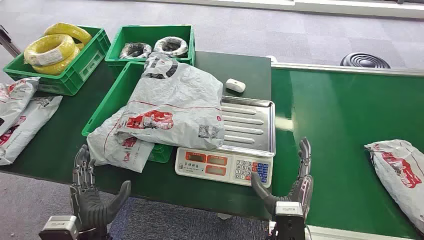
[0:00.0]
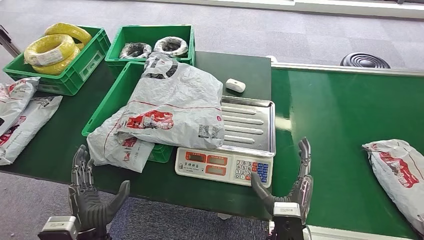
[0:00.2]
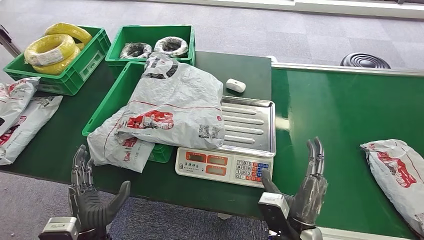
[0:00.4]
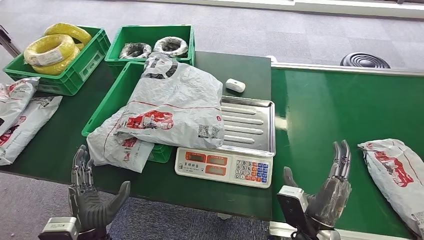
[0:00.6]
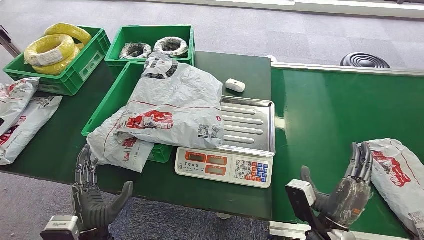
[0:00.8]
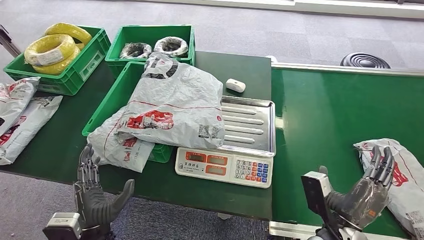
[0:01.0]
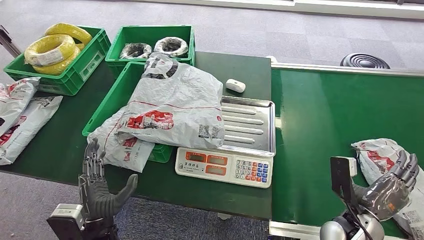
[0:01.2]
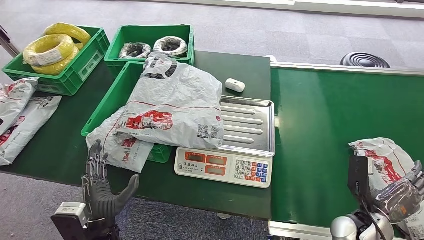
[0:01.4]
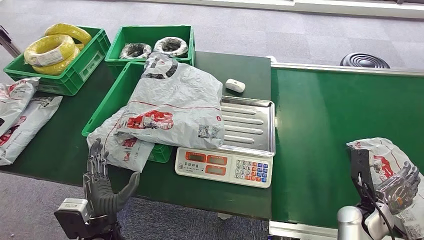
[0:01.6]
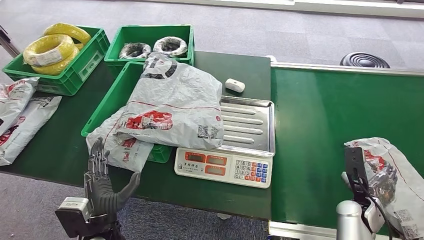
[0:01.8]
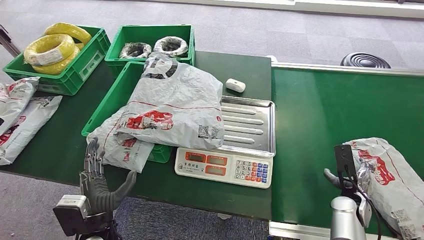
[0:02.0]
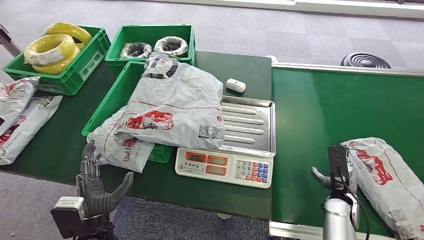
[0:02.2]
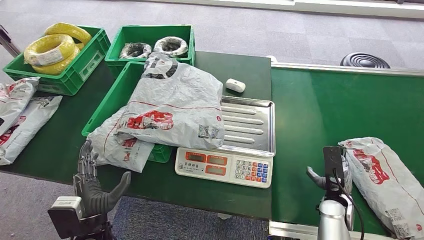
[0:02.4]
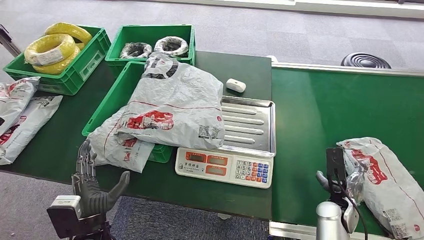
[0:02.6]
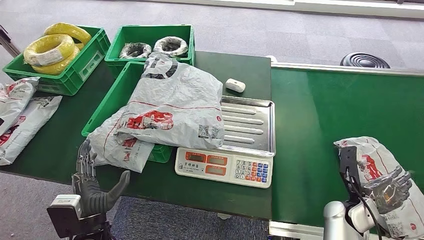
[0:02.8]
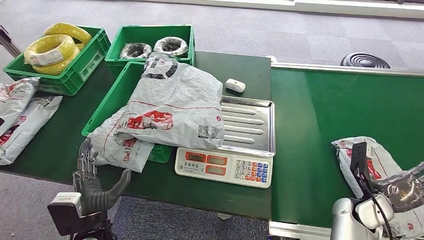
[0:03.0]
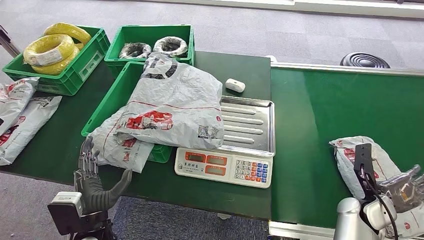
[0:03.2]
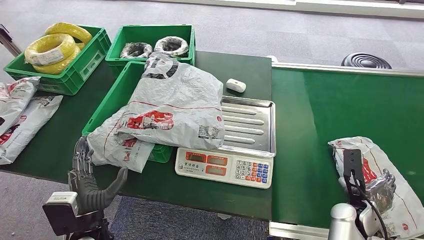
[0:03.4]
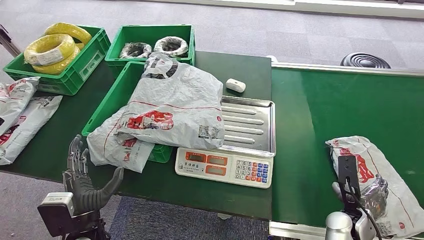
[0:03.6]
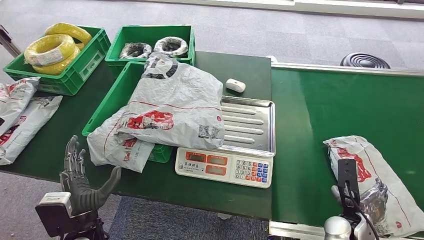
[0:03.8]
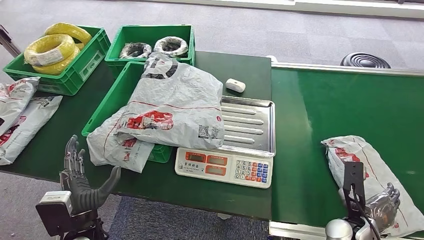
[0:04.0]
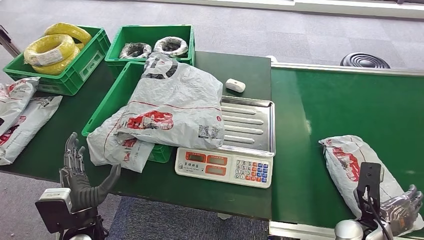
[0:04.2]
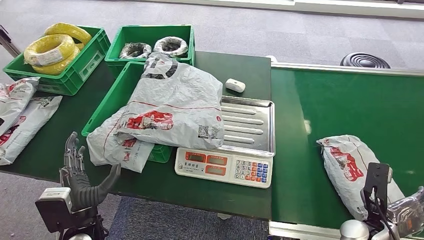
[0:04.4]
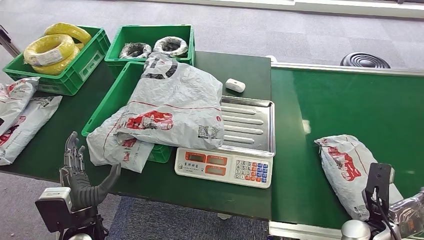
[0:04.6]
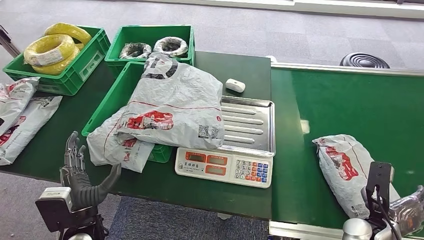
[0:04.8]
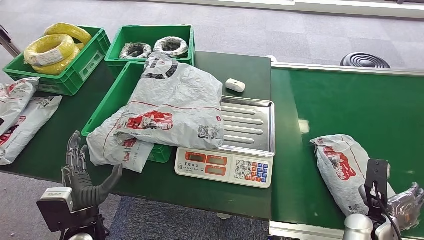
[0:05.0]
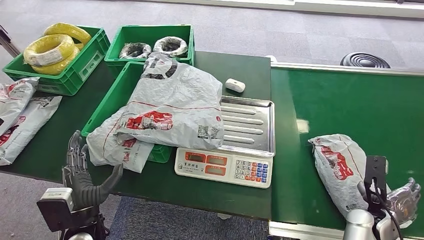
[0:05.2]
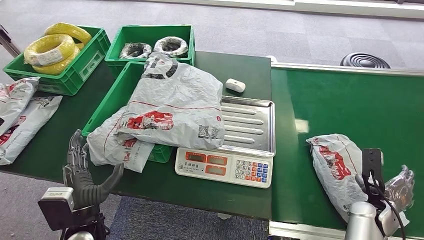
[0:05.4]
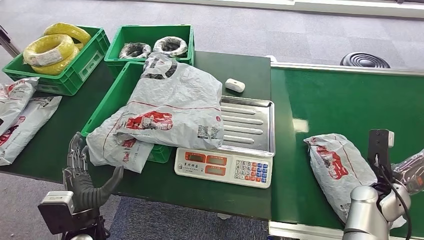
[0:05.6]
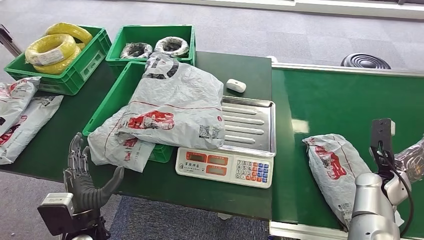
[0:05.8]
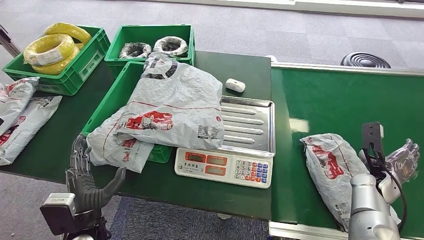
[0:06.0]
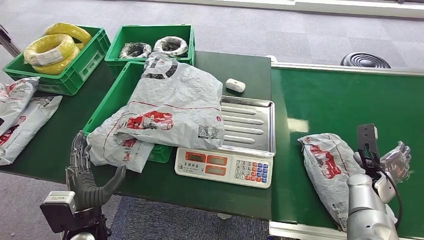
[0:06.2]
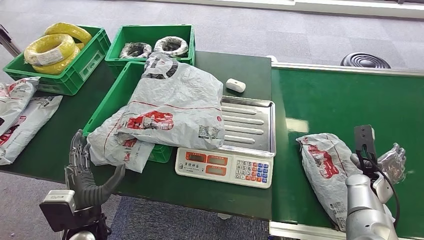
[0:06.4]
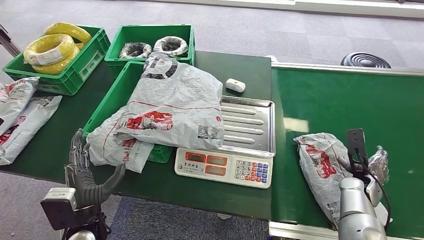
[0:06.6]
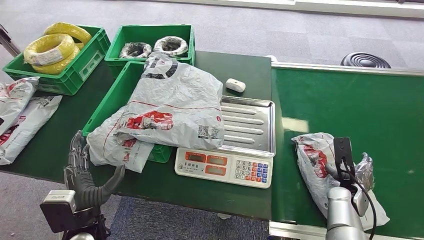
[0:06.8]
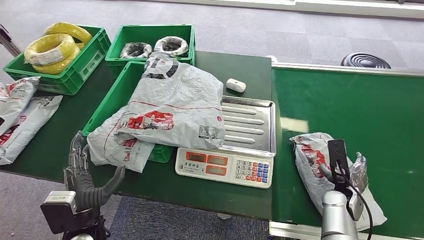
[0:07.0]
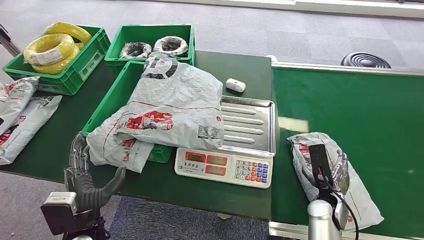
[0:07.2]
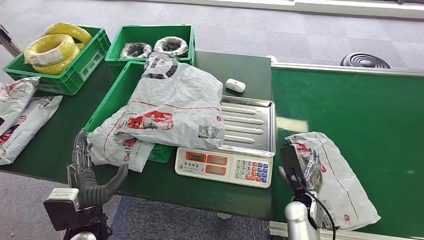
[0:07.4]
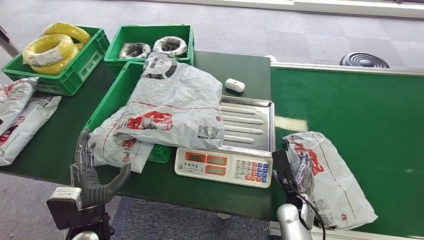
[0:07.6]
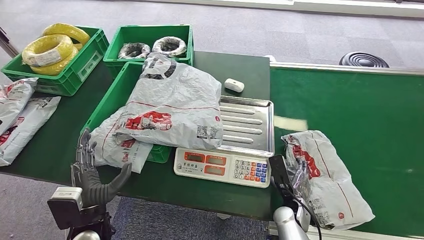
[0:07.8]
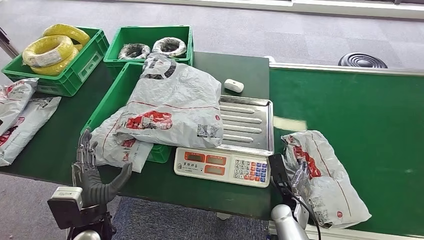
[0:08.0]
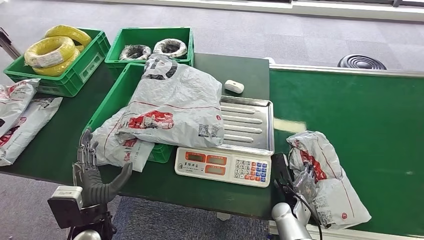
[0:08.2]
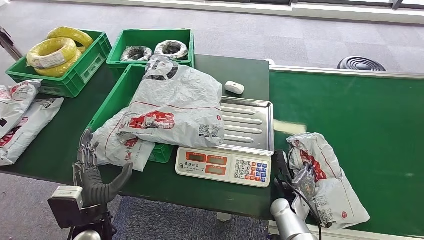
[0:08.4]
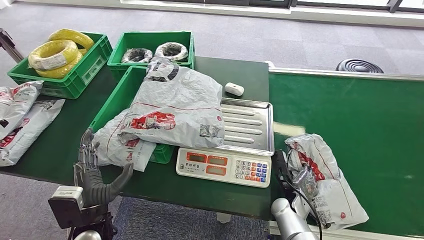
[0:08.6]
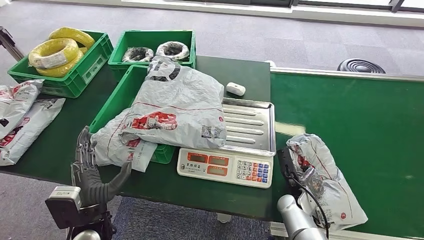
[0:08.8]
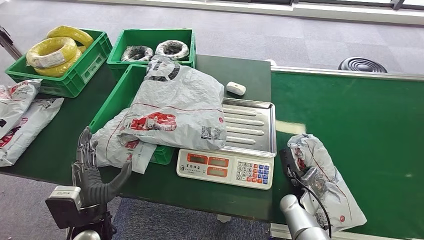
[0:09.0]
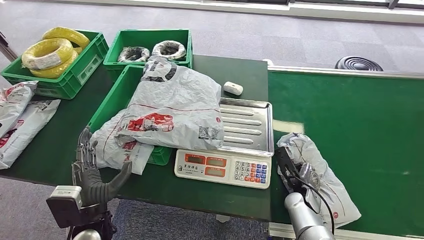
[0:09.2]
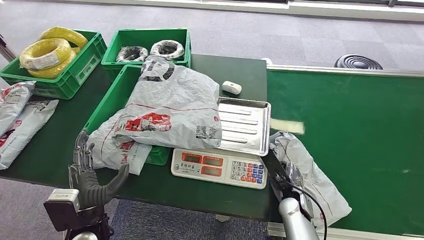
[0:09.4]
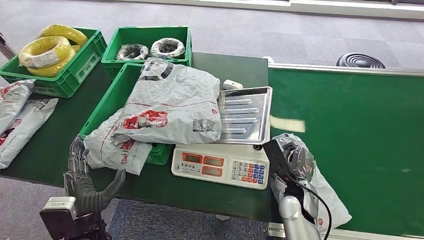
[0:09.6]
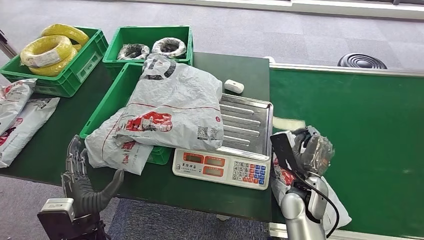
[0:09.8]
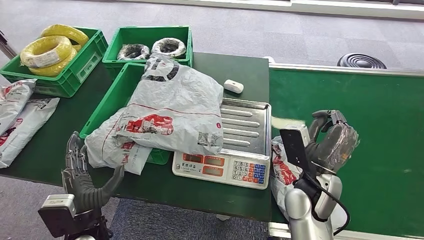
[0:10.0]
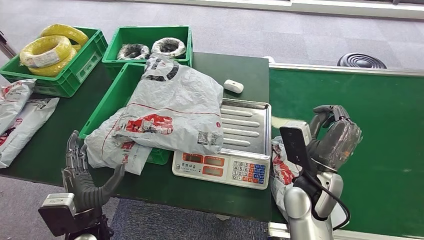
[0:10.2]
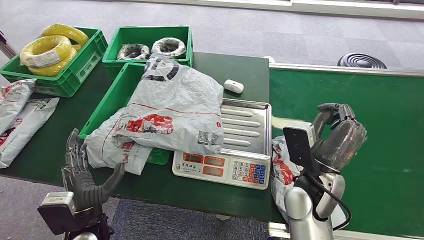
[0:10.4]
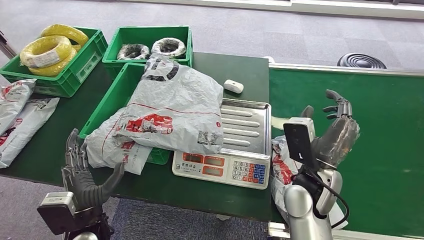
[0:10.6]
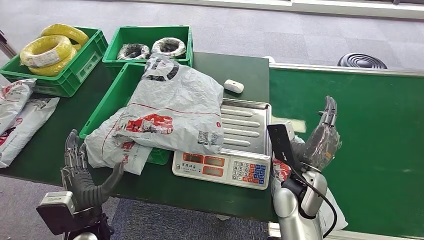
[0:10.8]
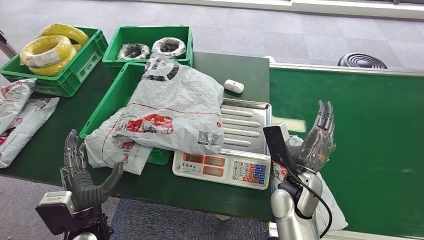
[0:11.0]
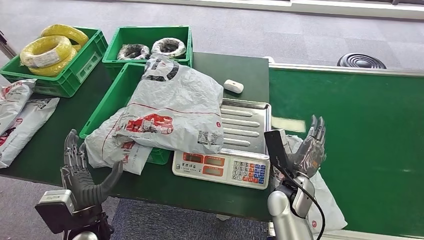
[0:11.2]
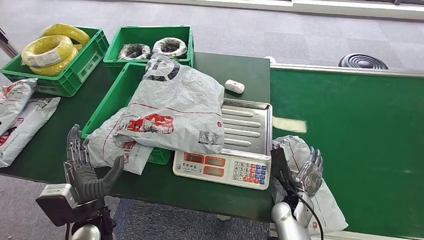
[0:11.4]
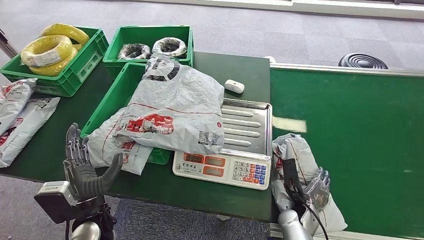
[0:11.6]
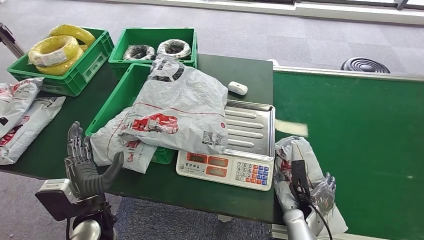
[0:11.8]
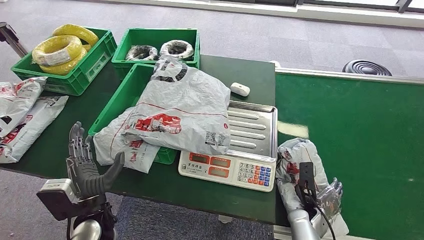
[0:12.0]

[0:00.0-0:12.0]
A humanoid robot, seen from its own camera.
0:03.0 to 0:04.4: The right hand heads backward, covering approximately 5 cm.
0:04.4 to 0:06.0: The right hand moves forward and to the right, about 15 cm.
0:06.0 to 0:07.6: The right hand moves to the left, some 20 cm.

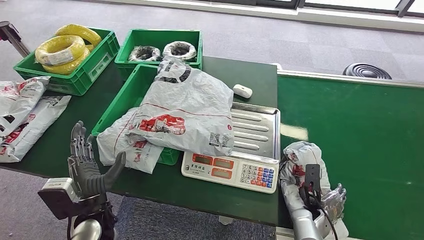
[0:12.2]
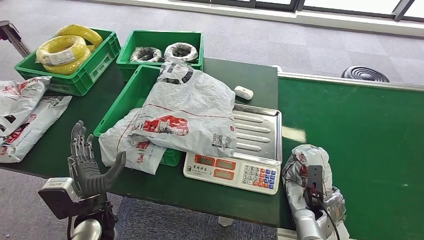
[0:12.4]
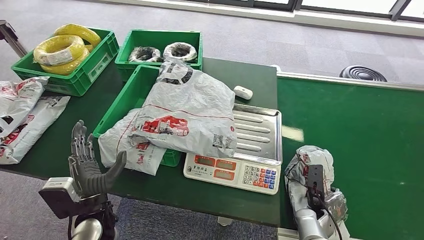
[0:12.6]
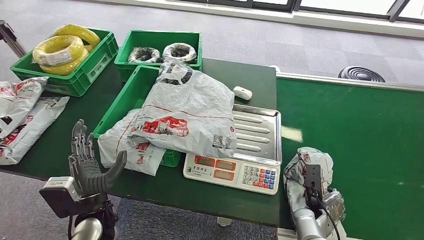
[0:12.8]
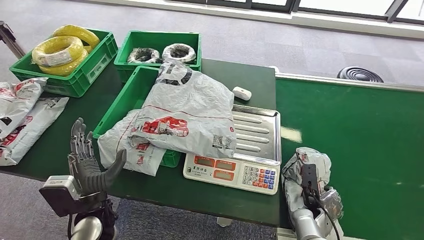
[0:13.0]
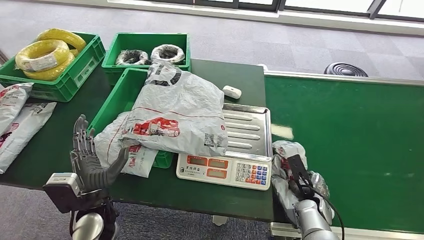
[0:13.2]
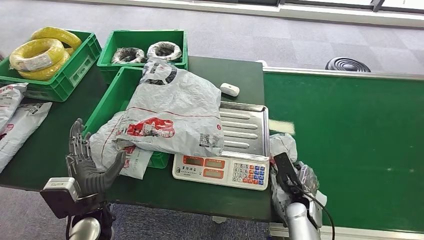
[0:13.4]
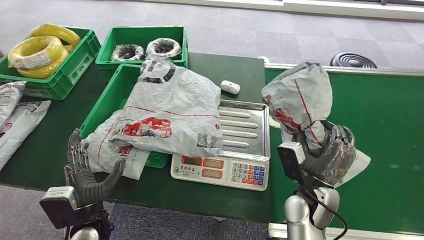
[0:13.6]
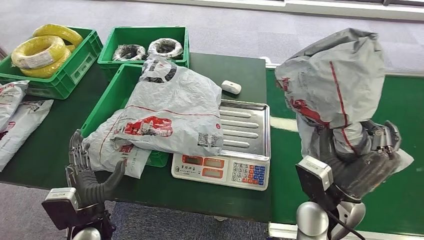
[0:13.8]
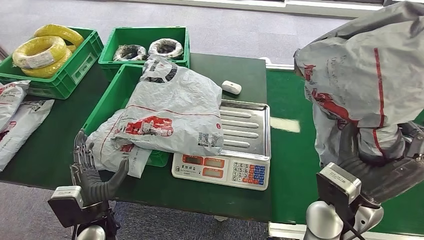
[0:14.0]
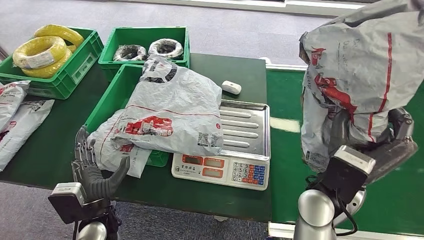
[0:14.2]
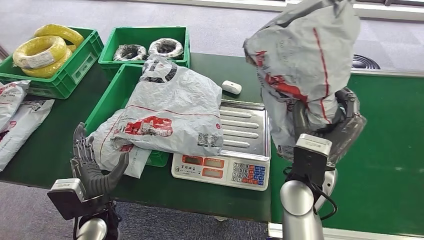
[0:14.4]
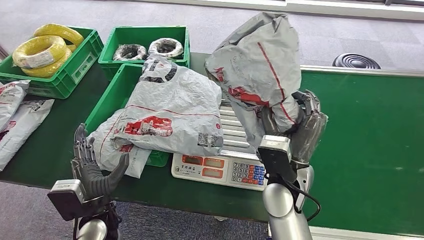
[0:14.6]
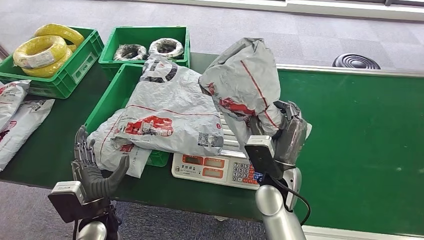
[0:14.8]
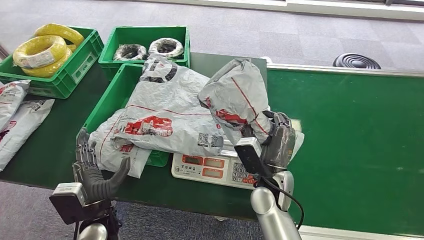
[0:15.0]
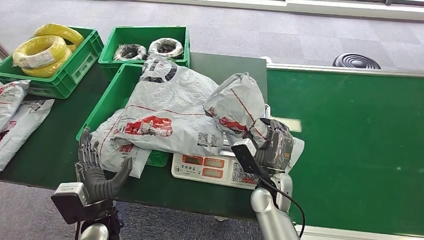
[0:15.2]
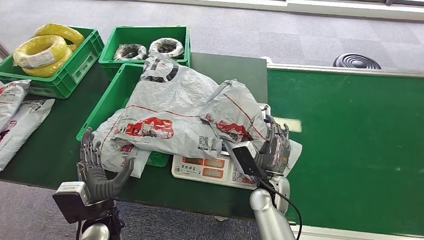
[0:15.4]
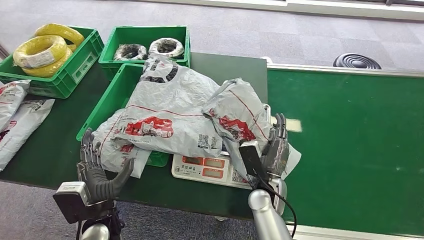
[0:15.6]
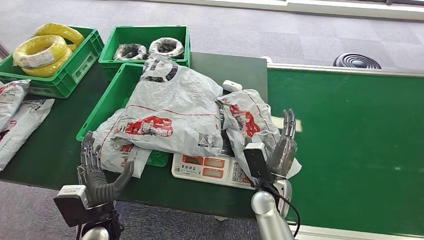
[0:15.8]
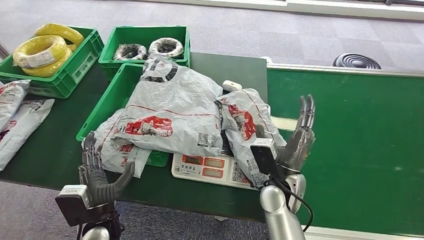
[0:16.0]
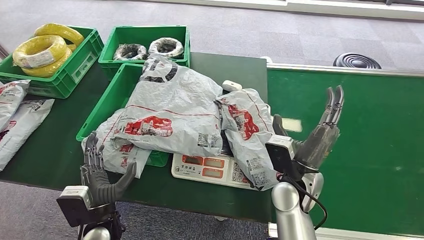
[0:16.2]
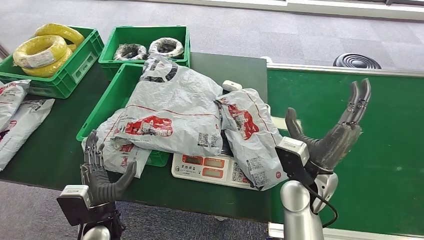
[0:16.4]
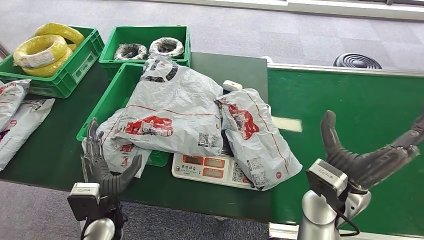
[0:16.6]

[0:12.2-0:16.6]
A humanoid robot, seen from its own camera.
Step, 0:14.2 to 0:16.6: Place the package onto the inbound machine.
0:15.2 to 0:16.6: The right hand goes approximately 15 cm upward and to the right.
